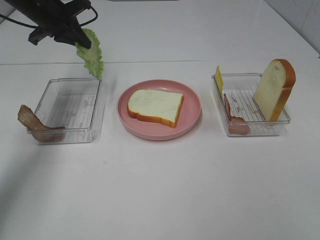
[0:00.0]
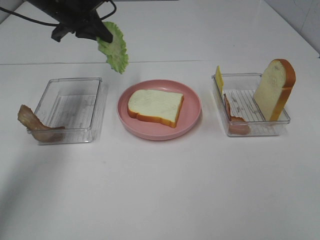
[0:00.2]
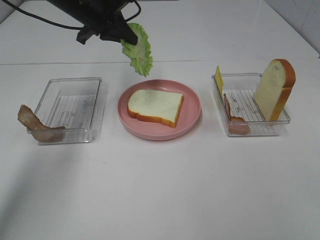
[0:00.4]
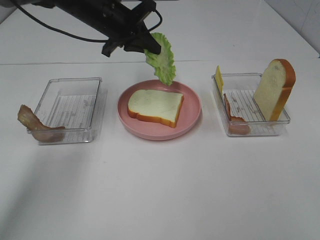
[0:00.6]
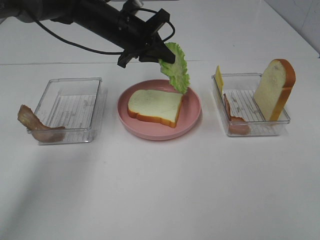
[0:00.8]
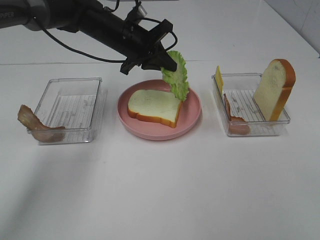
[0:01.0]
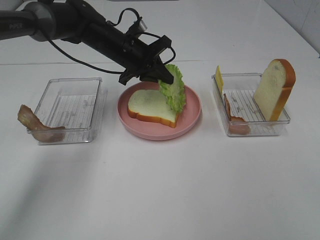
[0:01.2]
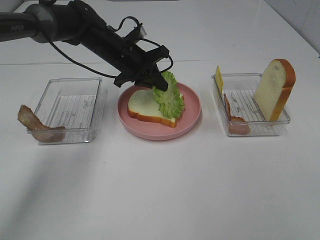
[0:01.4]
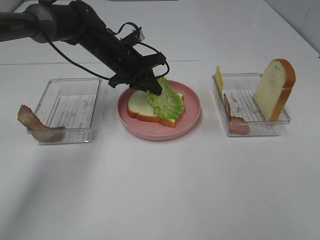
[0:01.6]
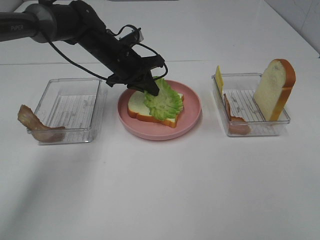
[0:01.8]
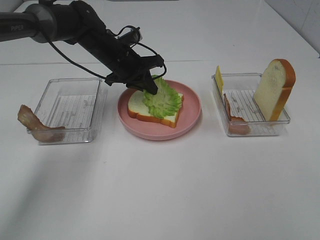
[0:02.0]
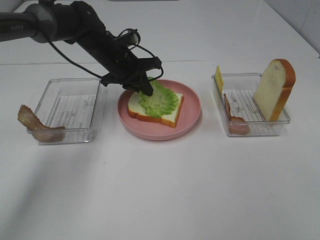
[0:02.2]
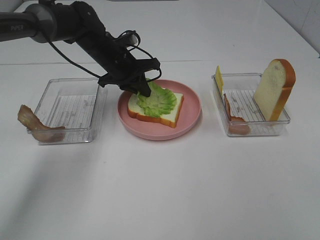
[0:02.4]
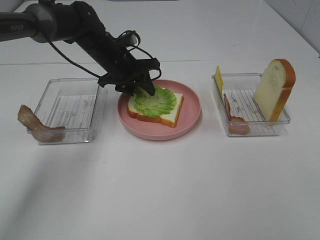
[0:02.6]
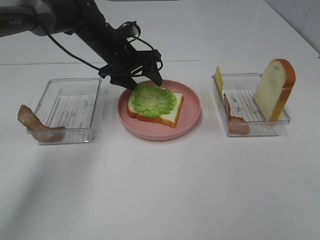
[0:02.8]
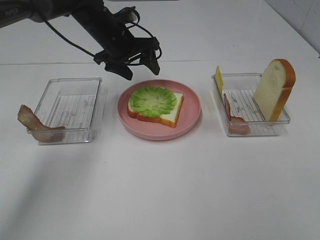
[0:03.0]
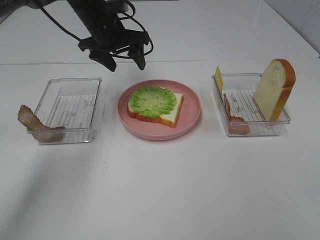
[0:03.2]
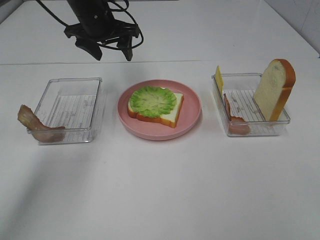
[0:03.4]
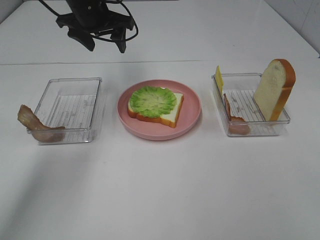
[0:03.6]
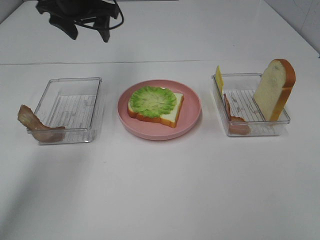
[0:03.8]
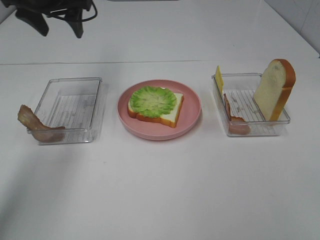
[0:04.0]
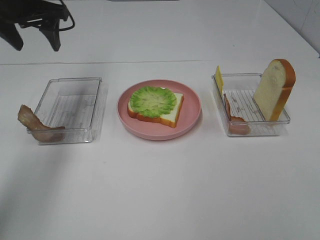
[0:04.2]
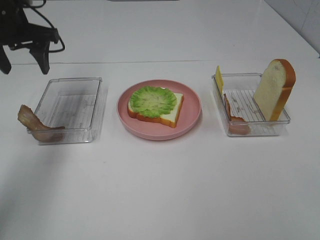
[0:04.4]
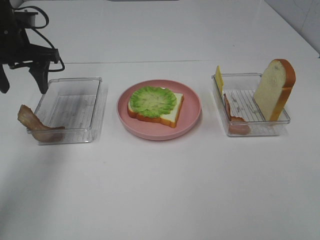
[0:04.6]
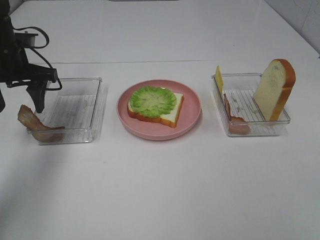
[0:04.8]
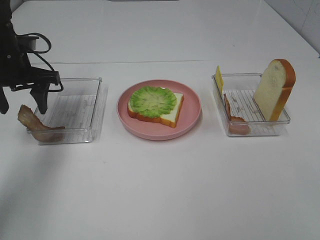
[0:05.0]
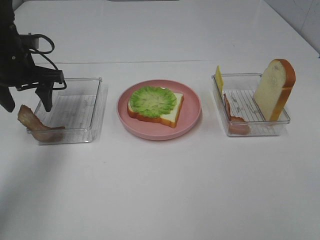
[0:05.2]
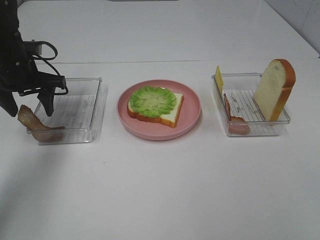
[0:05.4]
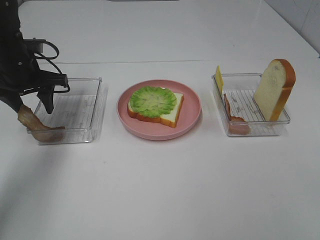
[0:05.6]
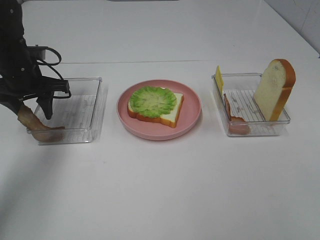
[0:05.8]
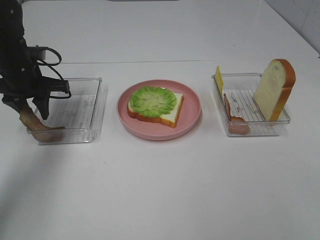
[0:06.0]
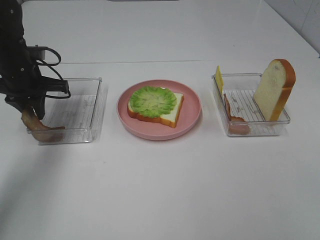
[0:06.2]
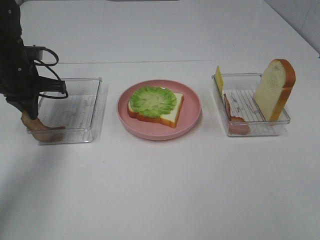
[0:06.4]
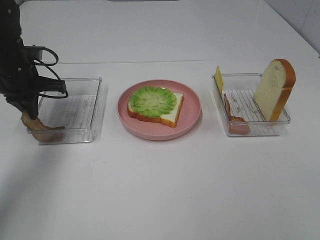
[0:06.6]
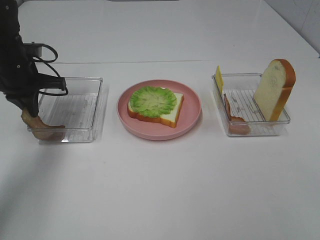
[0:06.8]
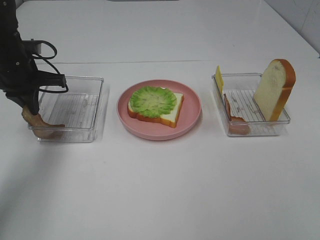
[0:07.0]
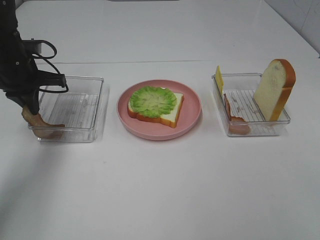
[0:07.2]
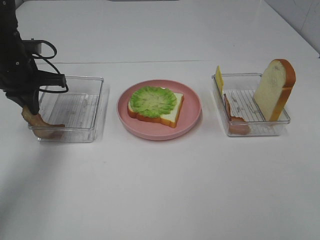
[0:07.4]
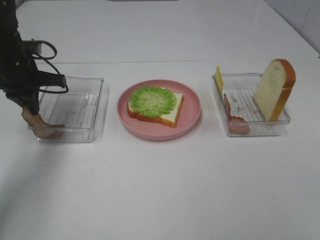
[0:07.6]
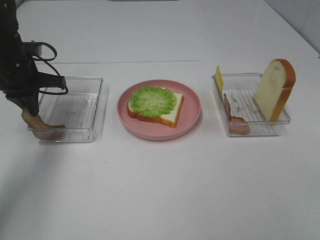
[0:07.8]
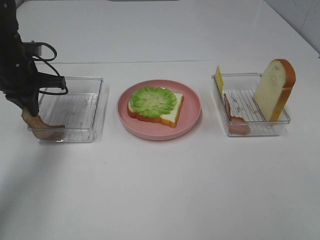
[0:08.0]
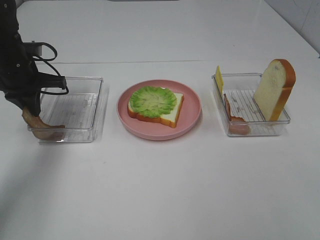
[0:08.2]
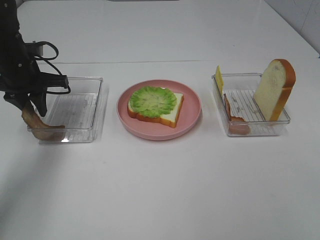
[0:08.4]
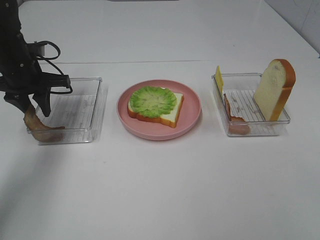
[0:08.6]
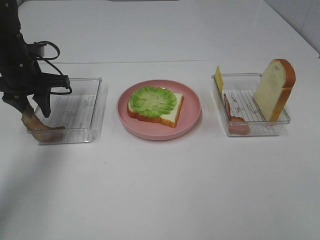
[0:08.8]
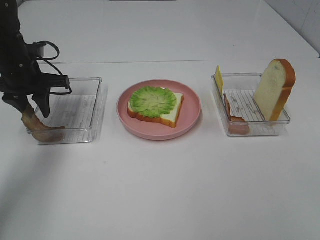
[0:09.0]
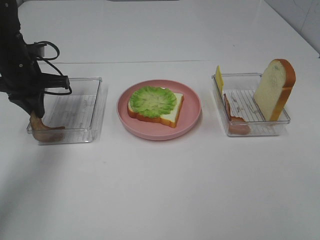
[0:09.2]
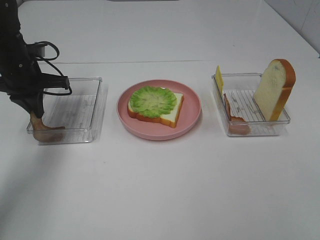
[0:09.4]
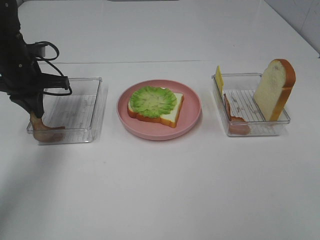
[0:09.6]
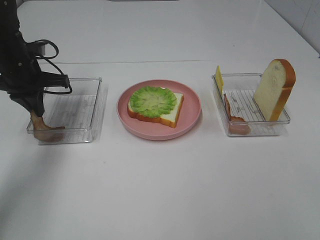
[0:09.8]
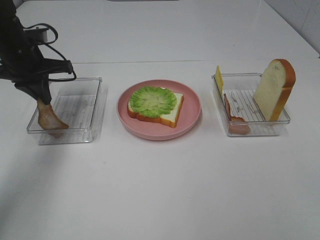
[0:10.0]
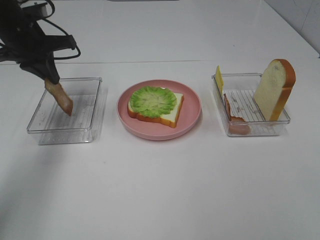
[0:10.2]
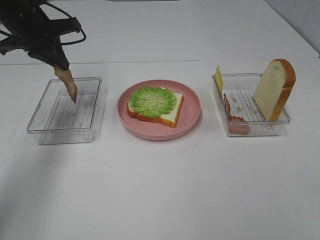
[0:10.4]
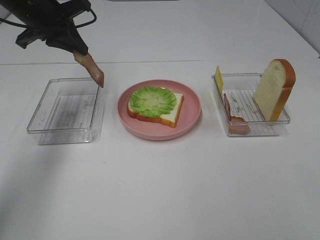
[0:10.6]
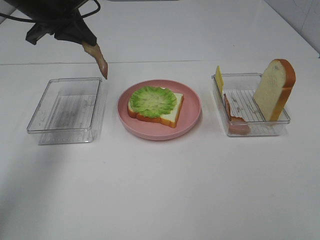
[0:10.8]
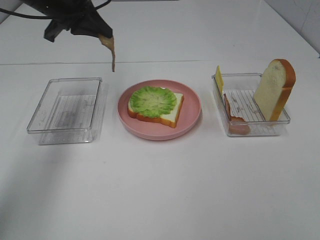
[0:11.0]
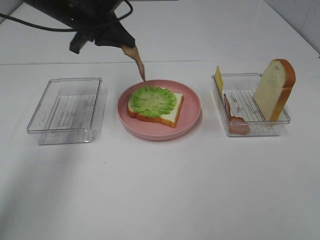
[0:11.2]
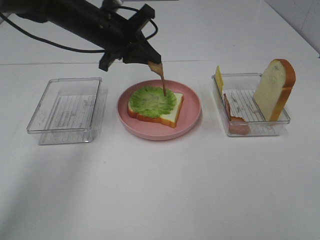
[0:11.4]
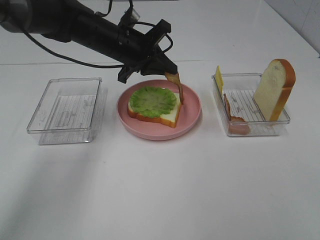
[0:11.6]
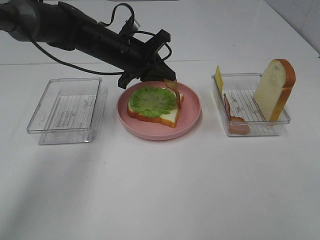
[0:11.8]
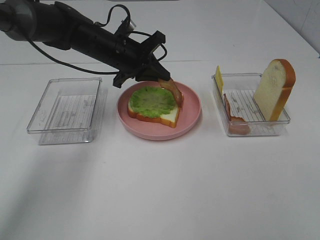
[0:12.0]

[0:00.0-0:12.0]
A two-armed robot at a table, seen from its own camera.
Task of the whole recording: Make sandwiches.
Step, 0:00.0 to 0:03.2: Left hand:place the lettuce slice on the bread slice.
Step, 0:03.4 to 0:09.6: Left hand:grab the bacon.
0:00.0 to 0:01.6: The left gripper shifts approximately 15 cm to the right and downward.
0:01.6 to 0:03.0: The left gripper changes place by about 5 cm, and opens.
0:03.0 to 0:04.4: The left gripper heads to the left and backward, covering some 15 cm.
0:04.4 to 0:06.0: The left gripper goes roughly 10 cm downward, and closes its fingers.
0:06.0 to 0:07.6: The left gripper closes.
0:07.6 to 0:09.0: The left gripper opens its fingers.
0:09.0 to 0:10.4: The left gripper goes roughly 10 cm upward, and closes its fingers.
0:10.4 to 0:12.0: The left gripper shifts about 15 cm to the right and downward.

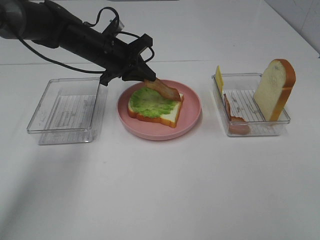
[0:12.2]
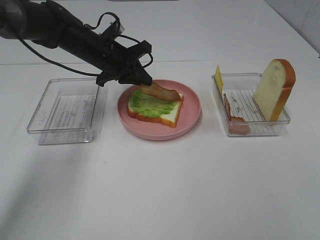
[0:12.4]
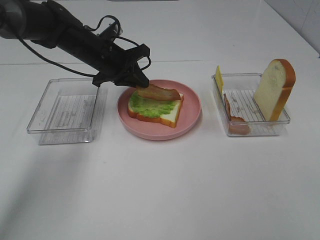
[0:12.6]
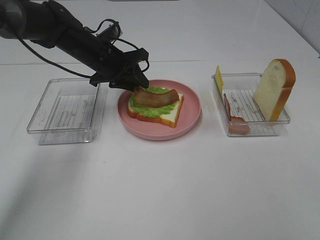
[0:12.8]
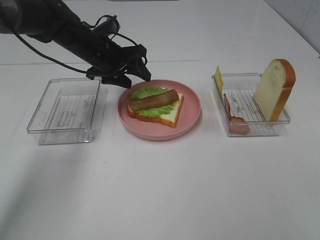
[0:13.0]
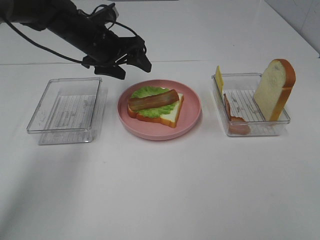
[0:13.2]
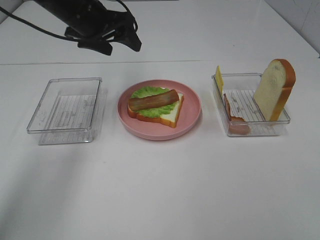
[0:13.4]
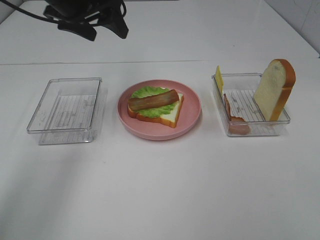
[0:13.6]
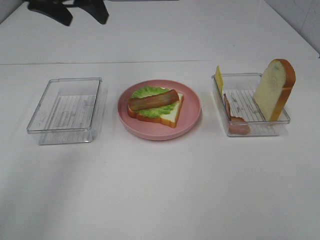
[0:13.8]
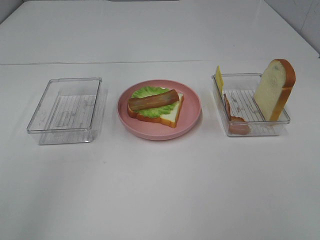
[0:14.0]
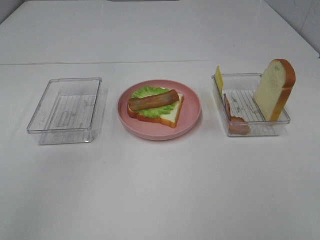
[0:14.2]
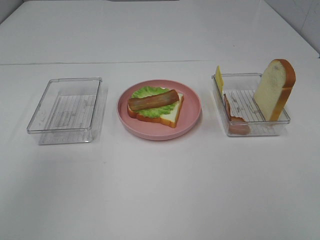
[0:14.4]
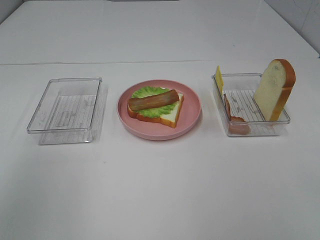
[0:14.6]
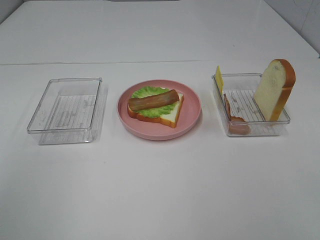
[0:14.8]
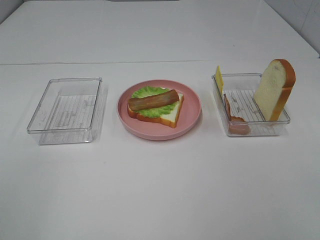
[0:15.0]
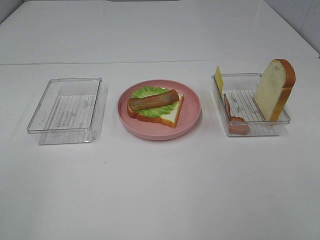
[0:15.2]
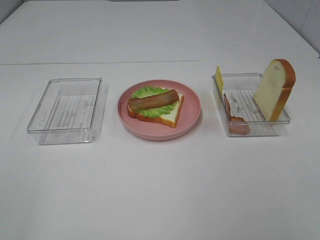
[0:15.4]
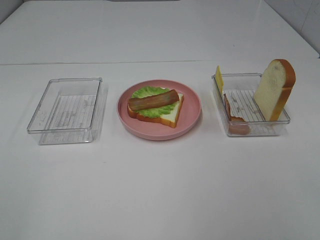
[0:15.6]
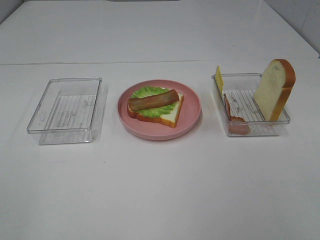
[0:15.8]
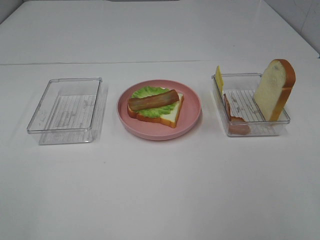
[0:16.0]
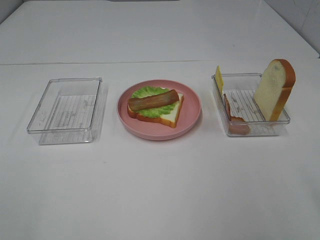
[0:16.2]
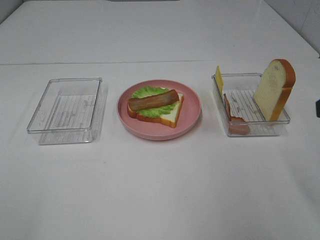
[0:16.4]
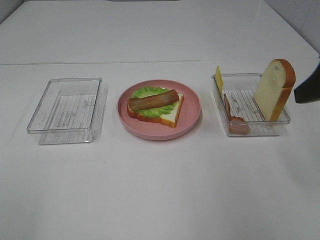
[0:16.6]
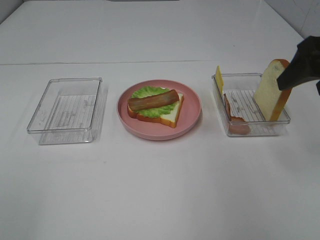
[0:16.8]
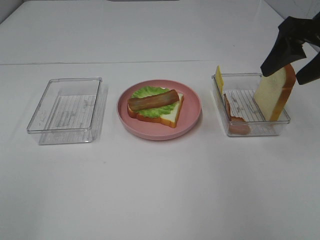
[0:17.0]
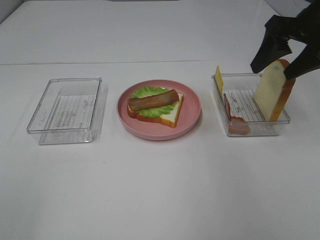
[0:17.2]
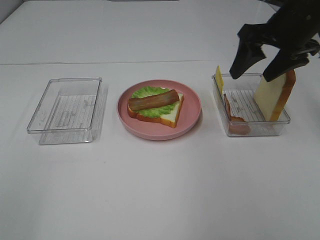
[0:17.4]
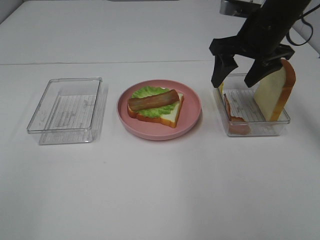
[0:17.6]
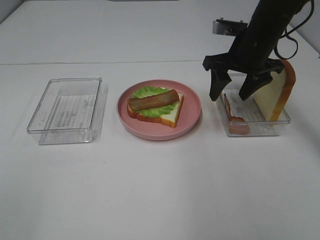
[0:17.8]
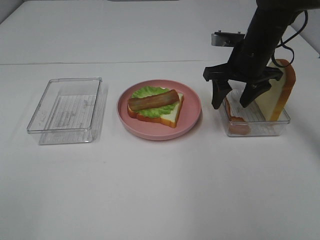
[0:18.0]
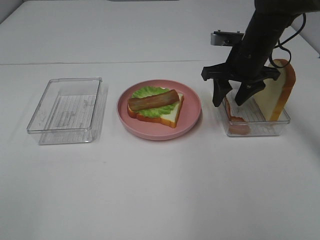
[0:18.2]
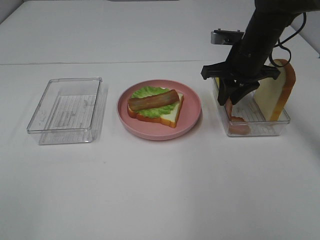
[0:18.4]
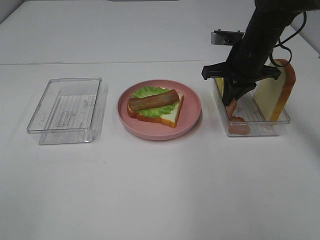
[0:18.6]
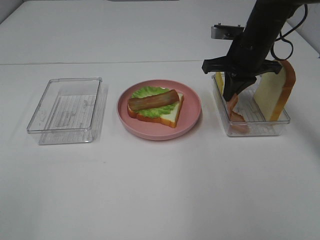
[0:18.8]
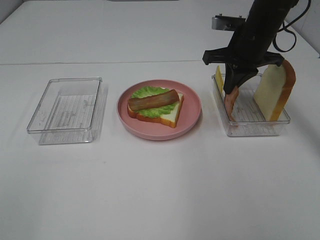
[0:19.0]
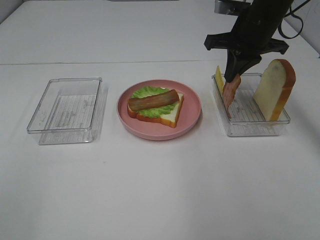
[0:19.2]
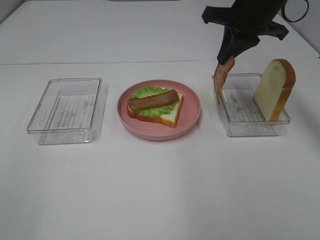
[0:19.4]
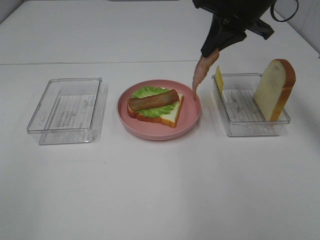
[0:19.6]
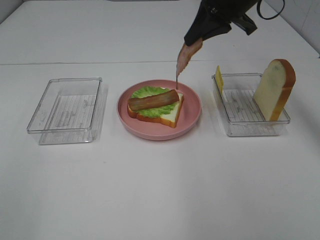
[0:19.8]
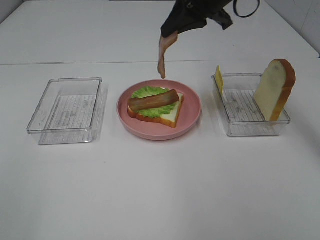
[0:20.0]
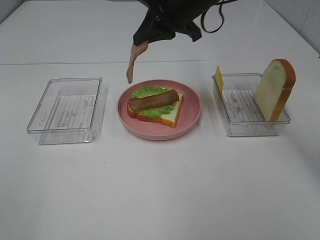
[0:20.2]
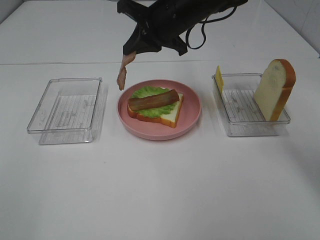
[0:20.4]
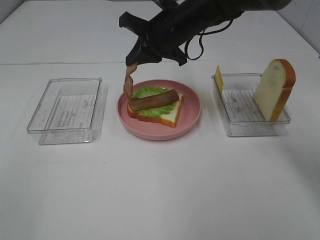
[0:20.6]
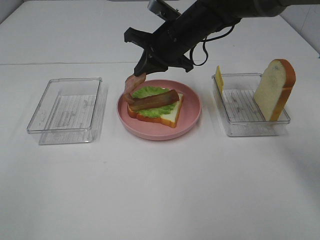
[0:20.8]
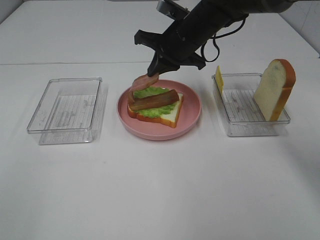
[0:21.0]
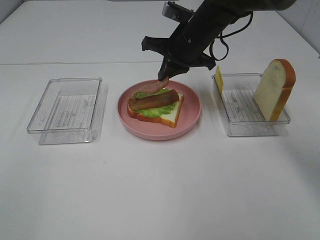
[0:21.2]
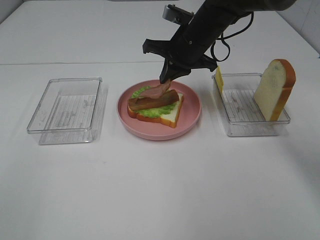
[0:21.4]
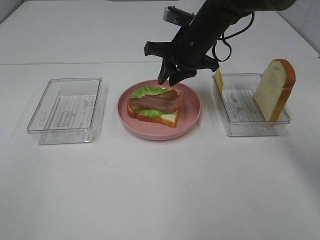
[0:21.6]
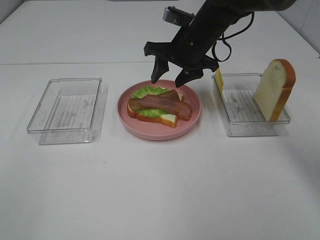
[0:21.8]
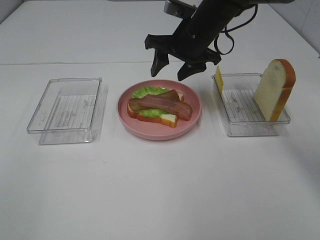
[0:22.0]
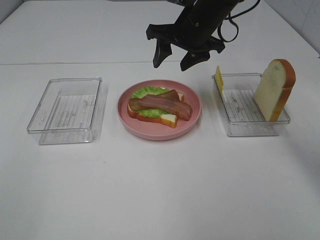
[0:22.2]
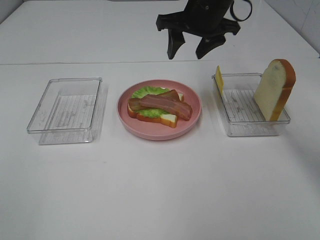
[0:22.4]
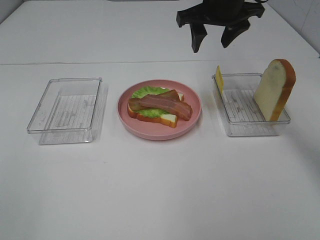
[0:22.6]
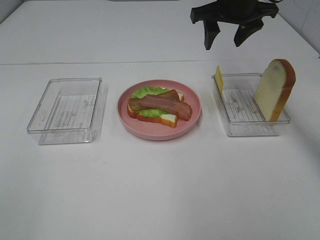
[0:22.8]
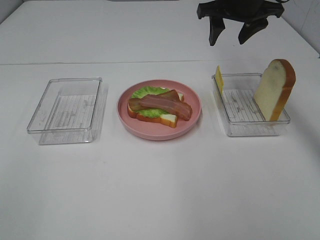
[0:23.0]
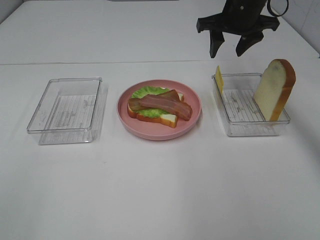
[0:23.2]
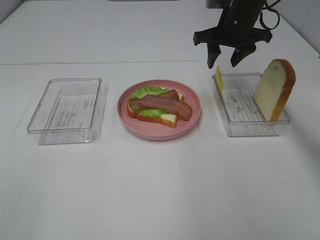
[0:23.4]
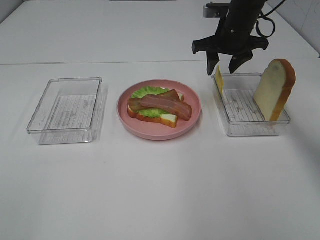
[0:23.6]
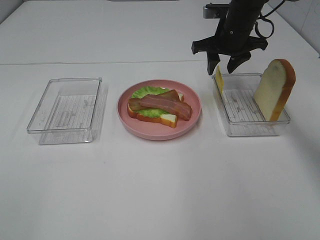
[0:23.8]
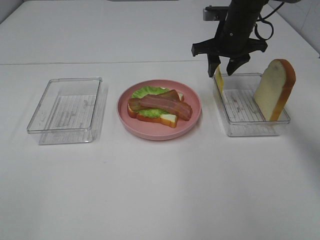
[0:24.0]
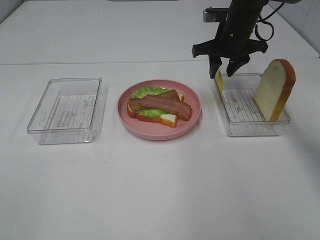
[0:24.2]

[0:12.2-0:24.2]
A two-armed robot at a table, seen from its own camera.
Task of the whole recording: Make sandwiches.
Step, 0:13.4 to 0:18.6: Right hand:grab the bacon.
Step, 0:18.8 to 0:21.6: Right hand:place bacon on bacon.
0:12.2 to 0:13.8: The left gripper is displaced upward by some 20 cm, and opens.
0:13.8 to 0:15.2: The left gripper shifts some 35 cm backward.
0:15.2 to 0:16.6: The right gripper is displaced forward by some 20 cm.
0:16.6 to 0:18.2: The right gripper travels forward, downward and to the left by about 25 cm.
0:18.2 to 0:19.8: The right gripper is displaced upward by approximately 10 cm, and closes up.
0:19.8 to 0:21.2: The right gripper is displaced downward and to the left by some 10 cm.
0:21.2 to 0:22.6: The right gripper shifts roughly 10 cm upward, and opens up.
0:22.6 to 0:24.2: The right gripper heads downward, covering about 10 cm.
